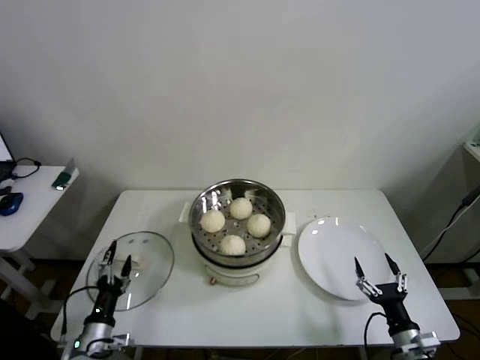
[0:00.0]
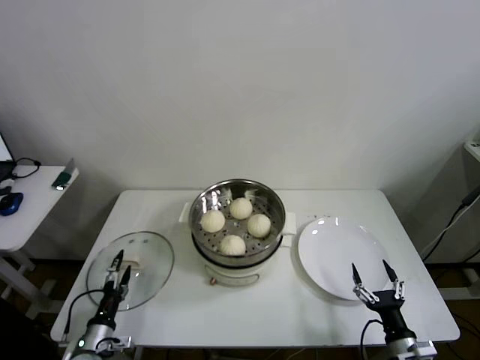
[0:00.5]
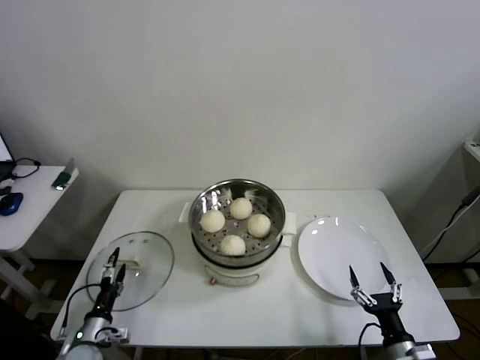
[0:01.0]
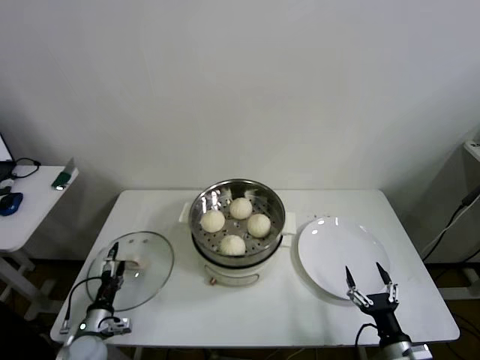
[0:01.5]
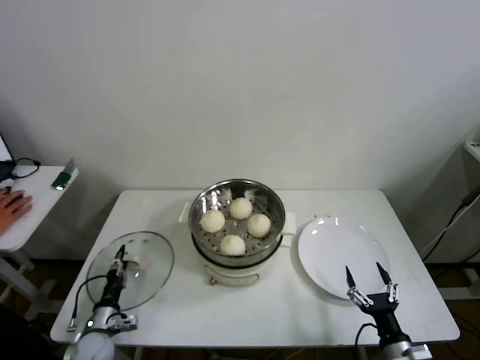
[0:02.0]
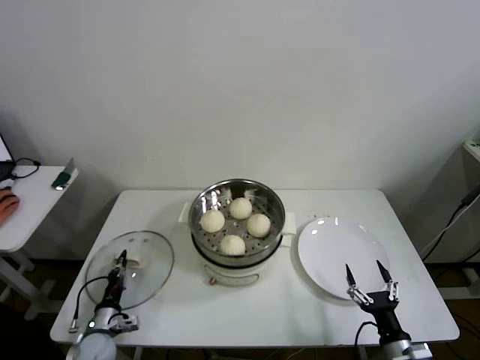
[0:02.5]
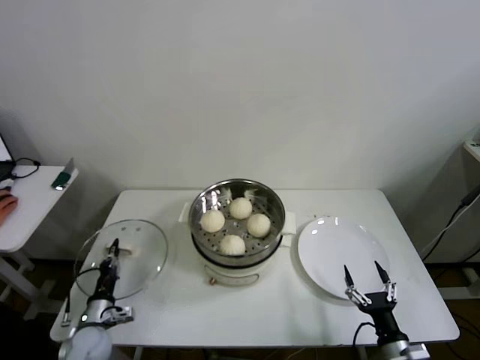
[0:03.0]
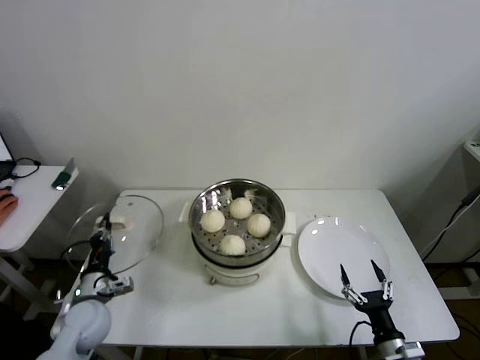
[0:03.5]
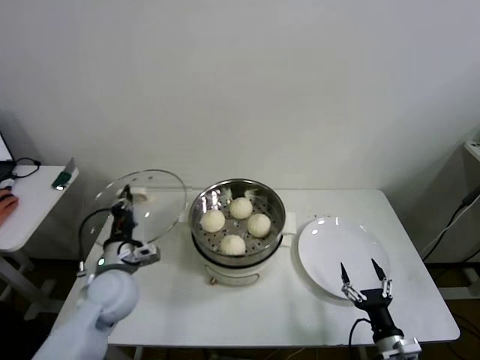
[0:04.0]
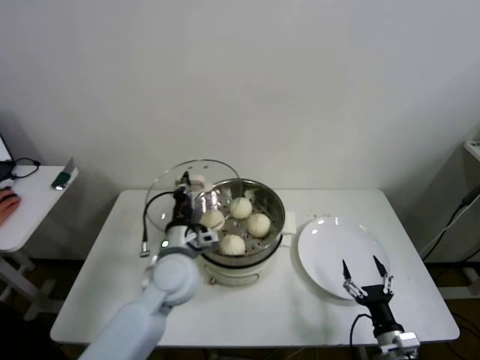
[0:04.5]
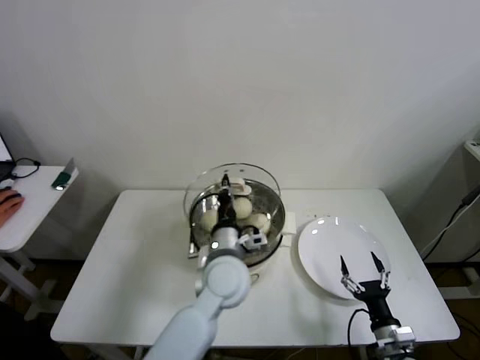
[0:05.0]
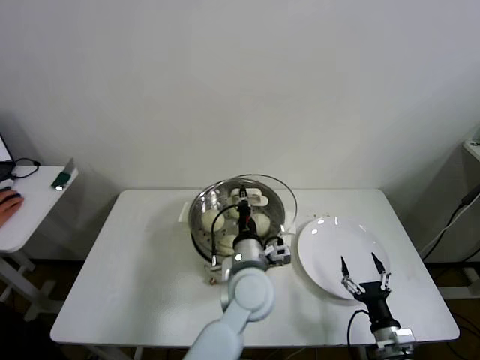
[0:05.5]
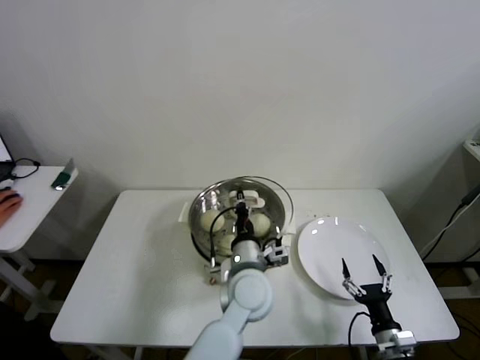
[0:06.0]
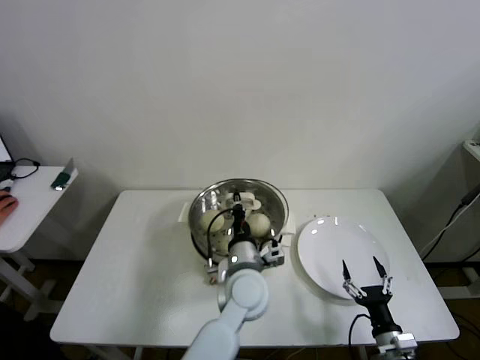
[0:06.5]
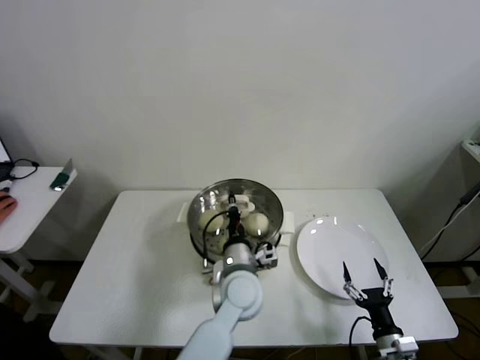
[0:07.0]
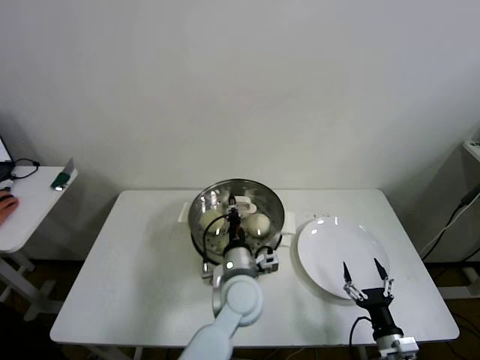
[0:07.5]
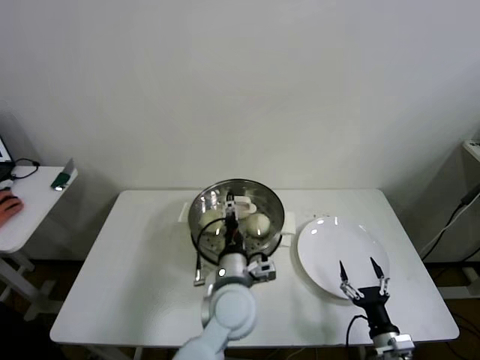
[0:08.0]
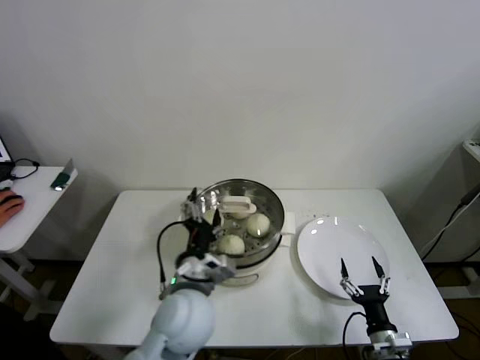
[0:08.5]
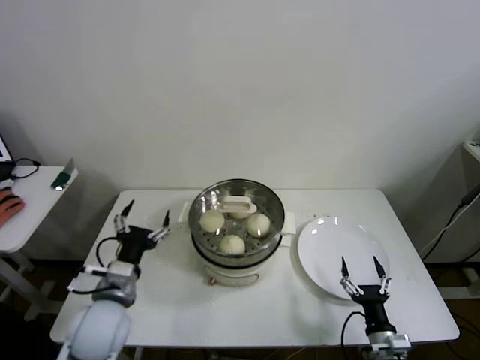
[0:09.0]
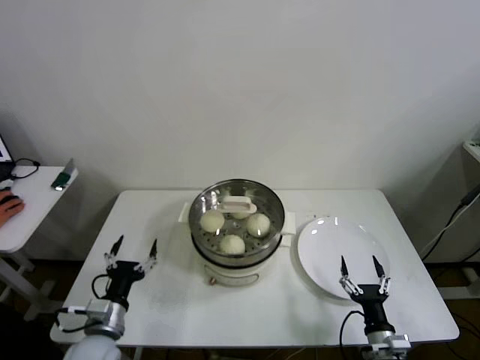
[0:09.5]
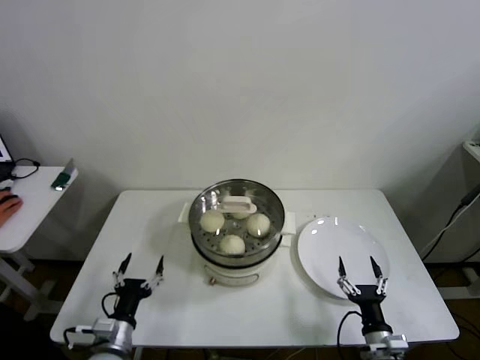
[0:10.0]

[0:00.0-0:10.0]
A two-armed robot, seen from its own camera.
Step, 0:00.0 to 0:02.0: Grasp the pot lid with left gripper.
Step, 0:02.5 to 0:07.0: Place the pot lid on the steamer with left gripper.
0:00.0 to 0:02.0: The left gripper shifts approximately 10 cm downward and forward, and closes up.
0:02.0 to 0:04.0: The left gripper moves upward and to the right, some 20 cm, and closes up.
0:04.0 to 0:06.0: The left gripper heads to the right, covering about 30 cm.
0:06.0 to 0:08.0: The left gripper opens.
0:08.0 to 0:10.0: The left gripper shifts roughly 30 cm to the left and downward.

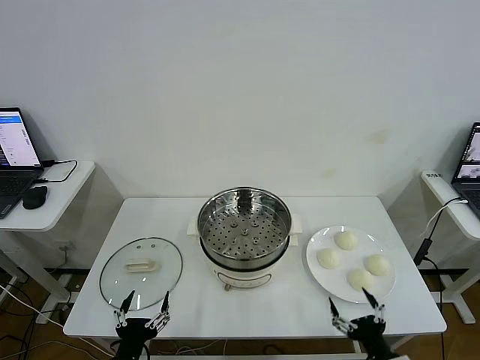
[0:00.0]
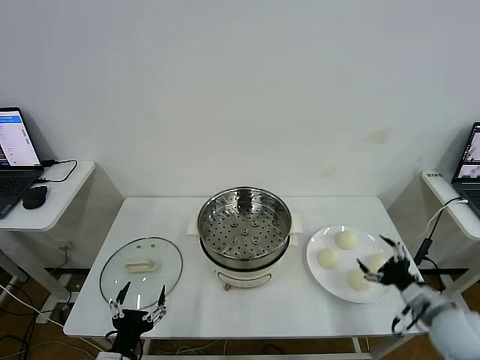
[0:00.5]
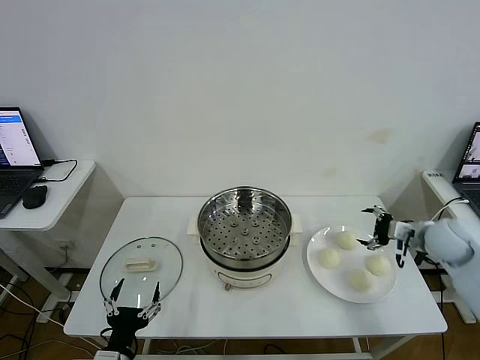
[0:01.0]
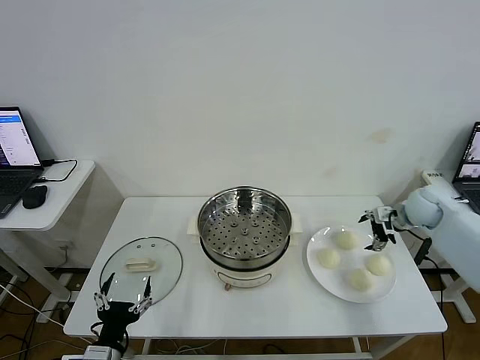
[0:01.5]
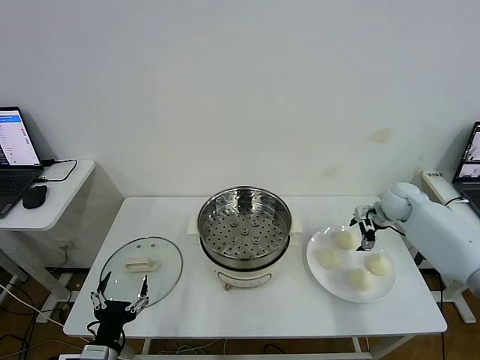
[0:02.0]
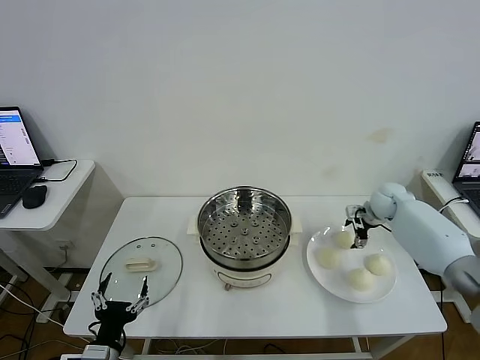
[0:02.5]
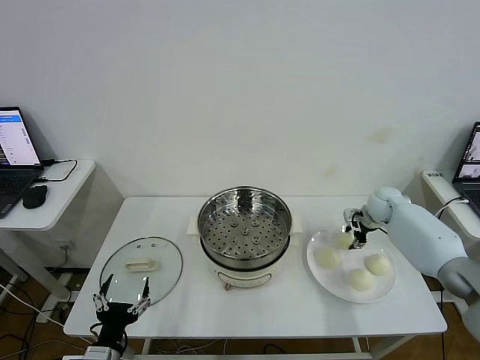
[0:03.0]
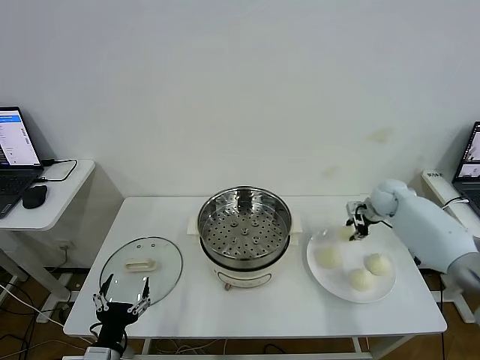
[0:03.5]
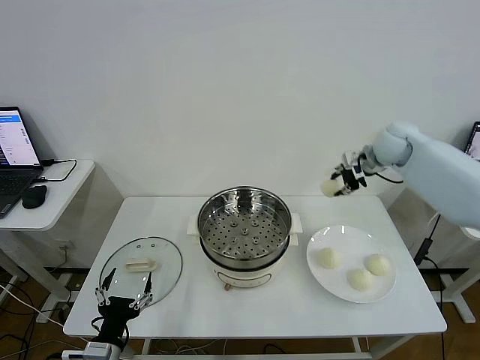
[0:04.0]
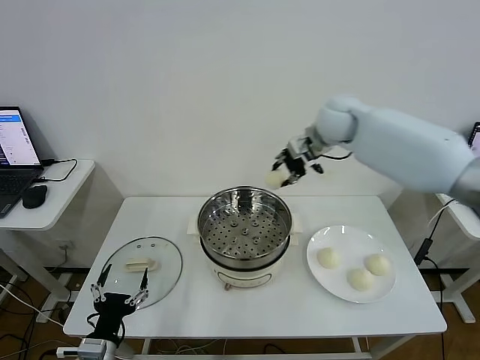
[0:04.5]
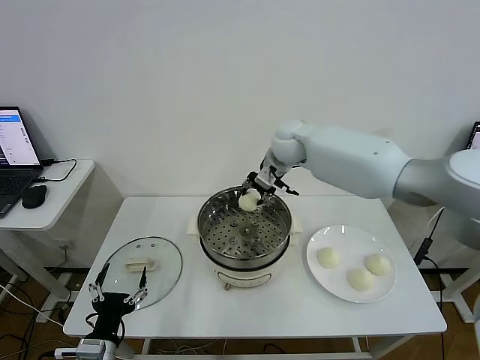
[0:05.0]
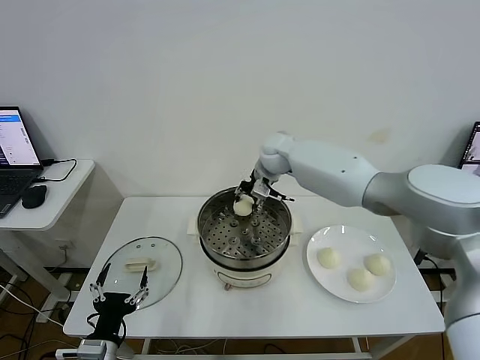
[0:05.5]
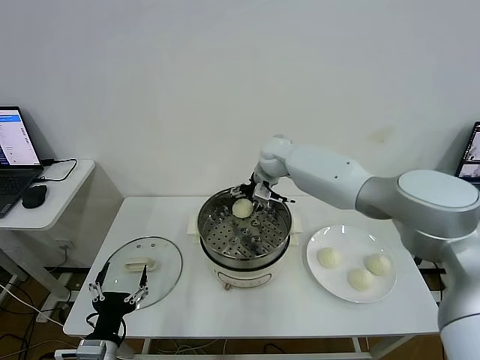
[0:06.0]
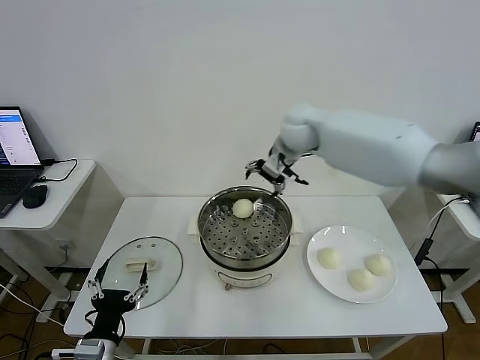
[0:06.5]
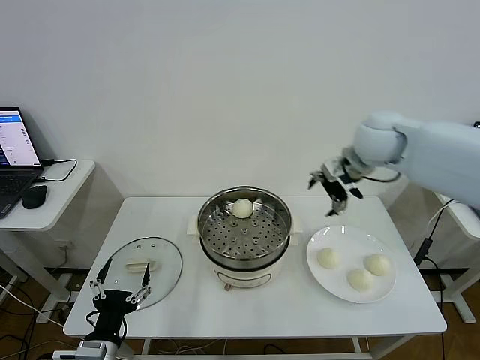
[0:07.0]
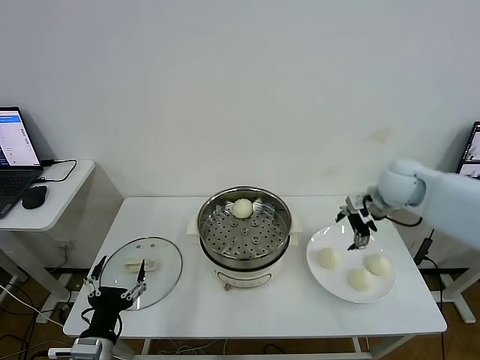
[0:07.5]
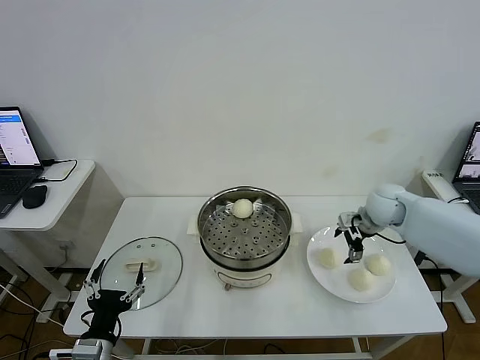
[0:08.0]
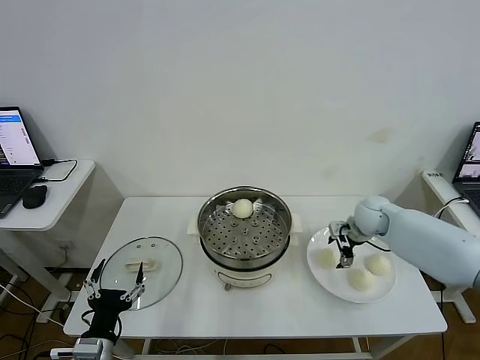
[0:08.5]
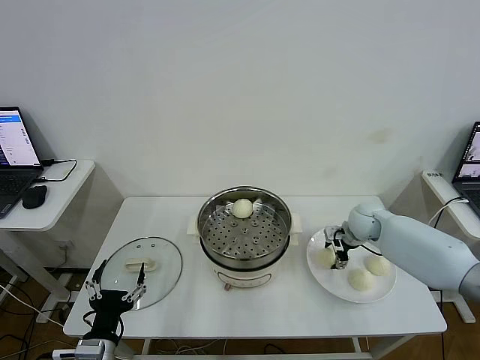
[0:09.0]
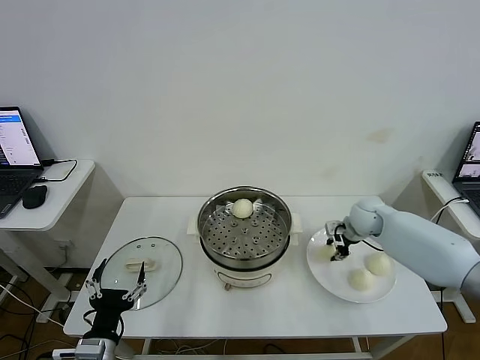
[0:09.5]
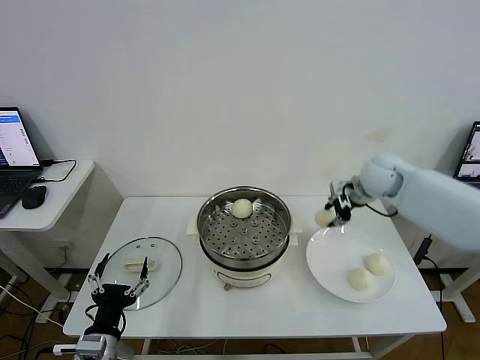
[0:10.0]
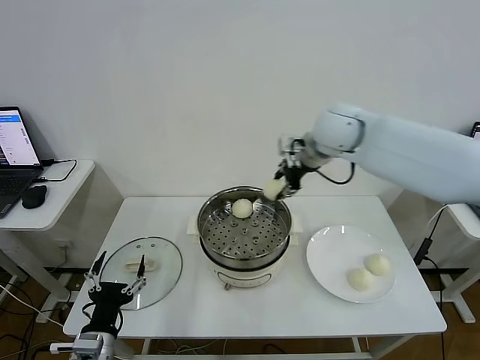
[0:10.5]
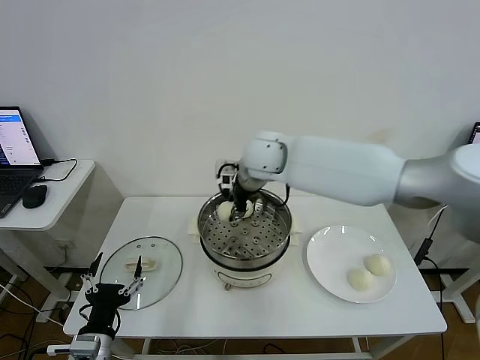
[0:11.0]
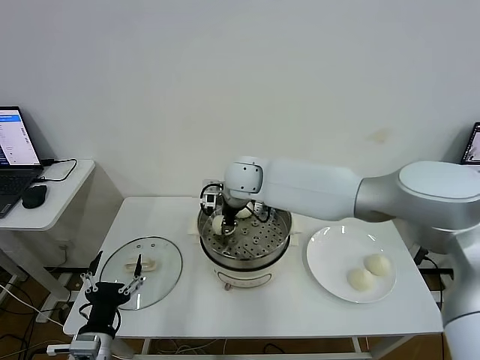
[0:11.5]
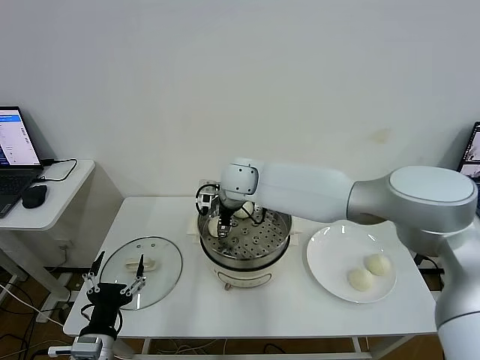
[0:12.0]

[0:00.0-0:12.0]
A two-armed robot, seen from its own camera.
Step, 0:00.0 to 0:03.0: Grasp the baozi in the plate with right gripper.
Step, 0:03.5 to 0:06.0: Place the baozi on the steamer with right gripper.
Step, 0:06.5 to 0:09.0: Grasp the baozi in the plate with right gripper.
0:02.0 to 0:04.0: The right gripper is displaced upward and to the left by about 20 cm, and closes up.
0:04.0 to 0:06.0: The right gripper moves to the left, roughly 25 cm, and opens up.
0:06.0 to 0:08.0: The right gripper goes about 30 cm to the right and backward.
0:08.0 to 0:10.0: The right gripper is displaced upward by approximately 10 cm, and closes its fingers.
0:10.0 to 0:12.0: The right gripper travels to the left by some 30 cm, and opens up.

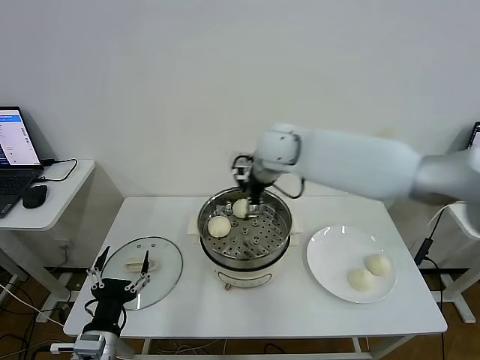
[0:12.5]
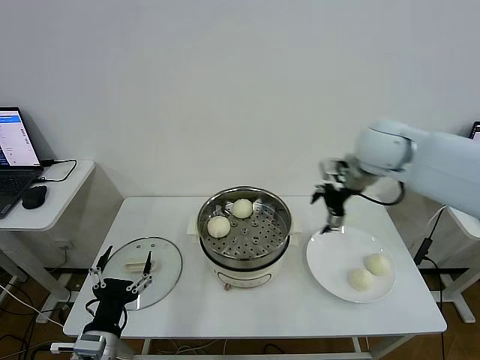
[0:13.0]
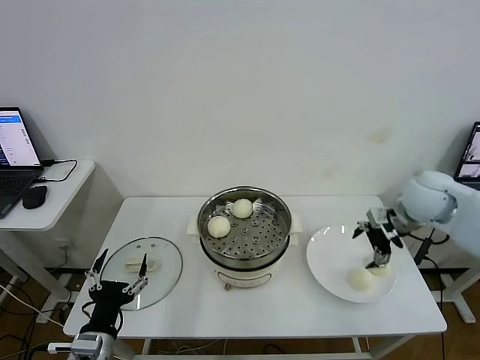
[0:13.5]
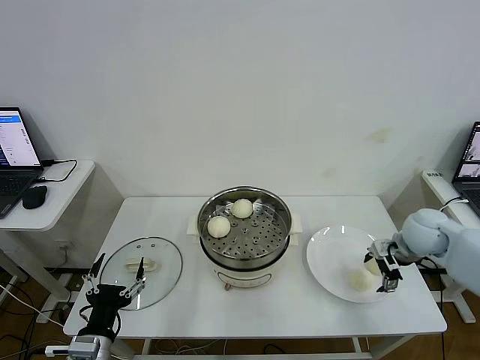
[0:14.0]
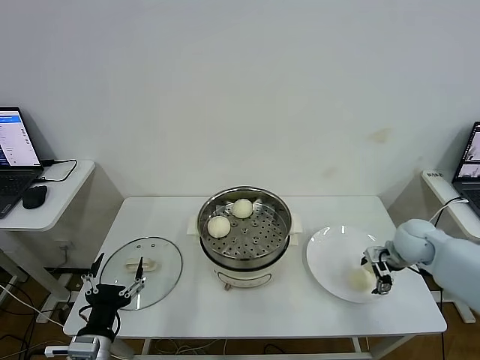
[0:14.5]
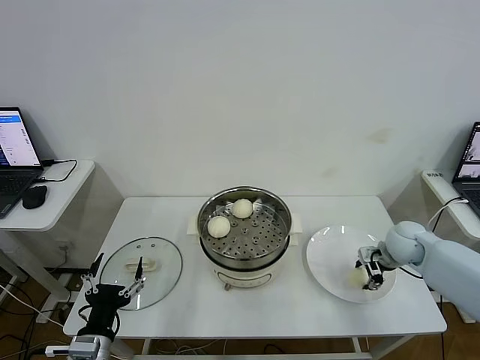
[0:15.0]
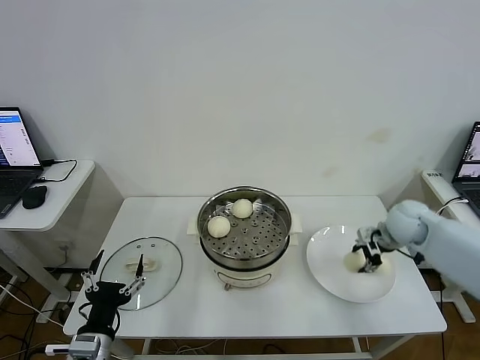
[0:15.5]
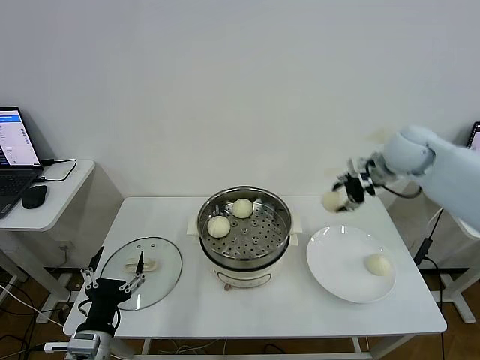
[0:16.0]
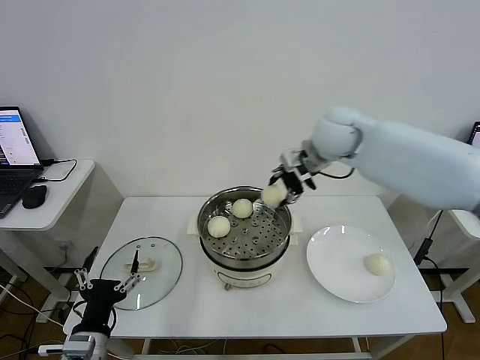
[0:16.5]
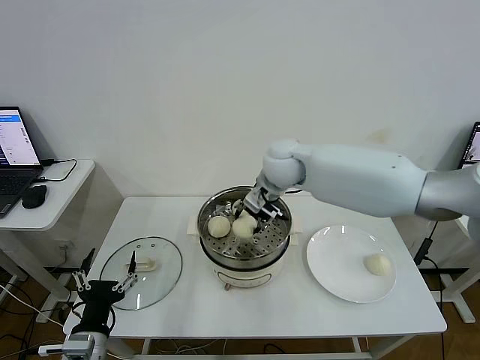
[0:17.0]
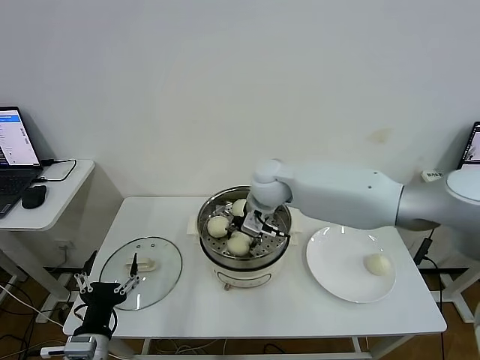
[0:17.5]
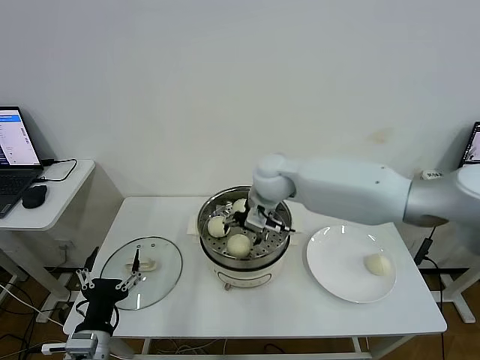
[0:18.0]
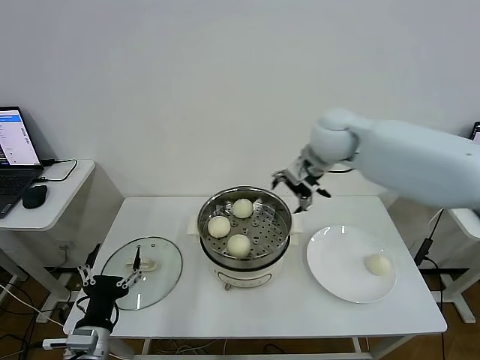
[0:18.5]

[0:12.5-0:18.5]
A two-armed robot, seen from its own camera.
Step, 0:12.5 to 0:15.0: Grasp the baozi in the plate with right gripper.
Step, 0:15.5 to 0:18.0: Place the baozi on the steamer with right gripper.
0:12.5 to 0:14.5: The right gripper heads to the right and downward, covering some 35 cm.
0:14.5 to 0:16.5: The right gripper travels to the left, upward and forward by roughly 35 cm, and closes its fingers.
0:16.5 to 0:18.5: The right gripper travels to the left and back again, some 10 cm each way, and opens up.
